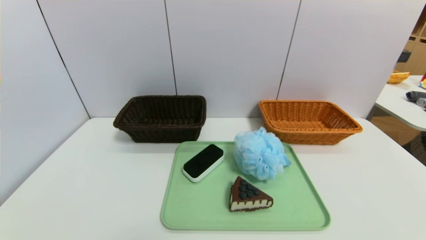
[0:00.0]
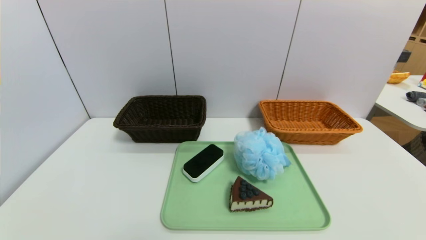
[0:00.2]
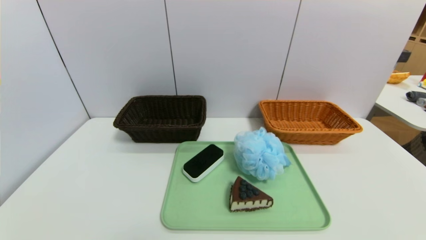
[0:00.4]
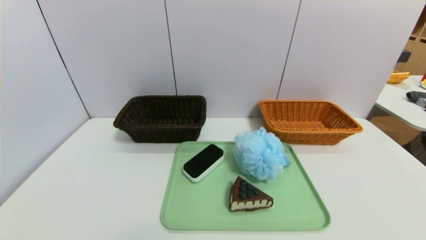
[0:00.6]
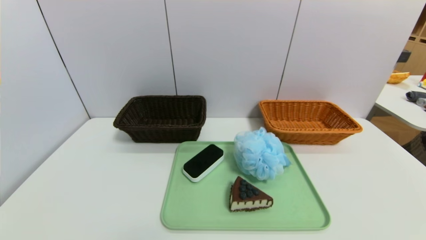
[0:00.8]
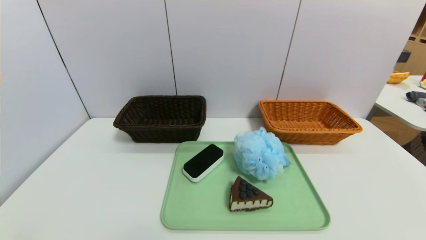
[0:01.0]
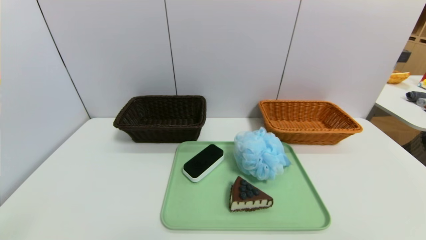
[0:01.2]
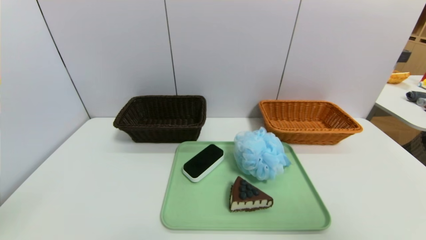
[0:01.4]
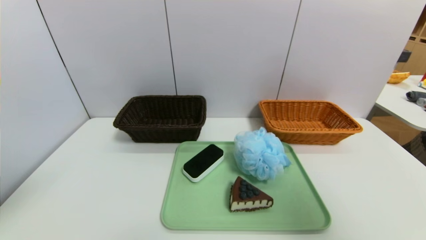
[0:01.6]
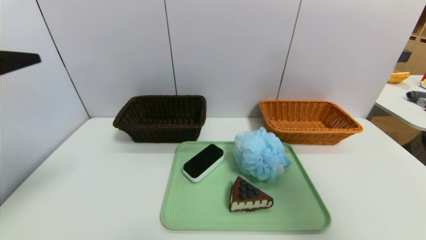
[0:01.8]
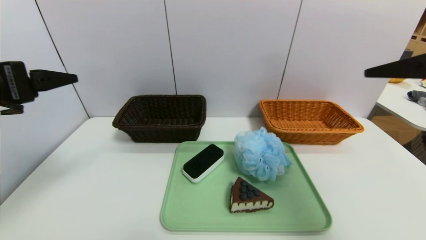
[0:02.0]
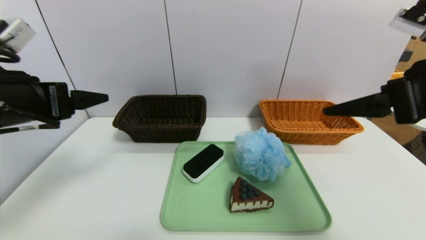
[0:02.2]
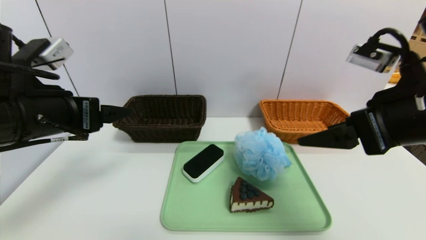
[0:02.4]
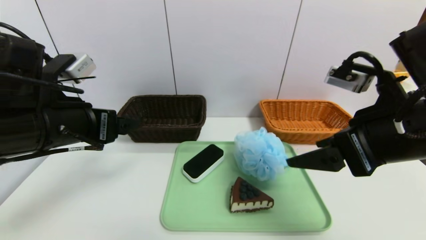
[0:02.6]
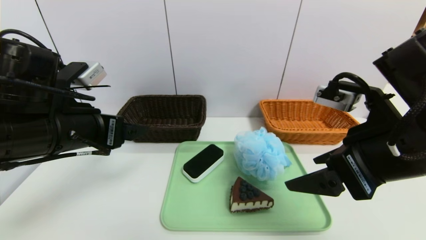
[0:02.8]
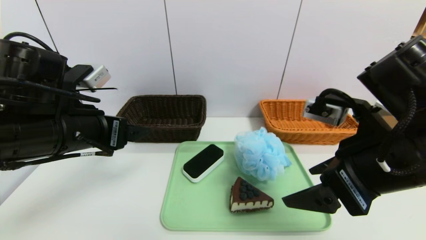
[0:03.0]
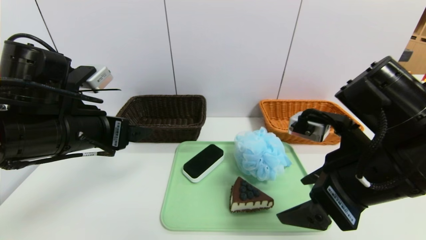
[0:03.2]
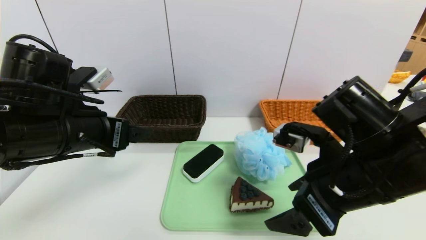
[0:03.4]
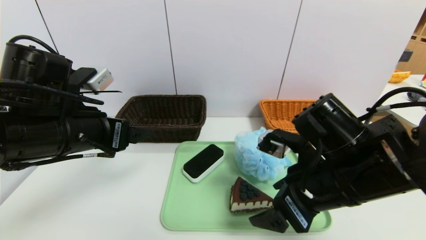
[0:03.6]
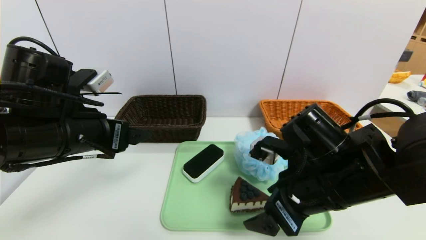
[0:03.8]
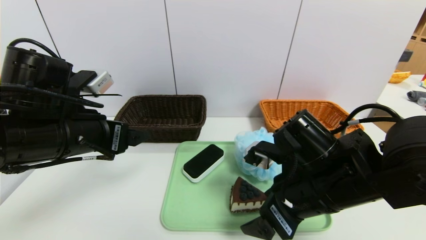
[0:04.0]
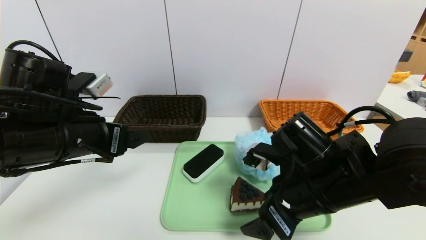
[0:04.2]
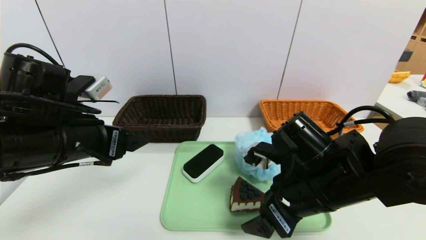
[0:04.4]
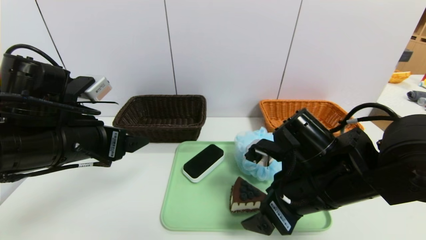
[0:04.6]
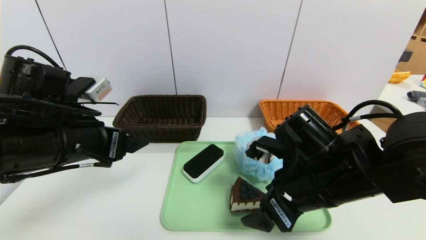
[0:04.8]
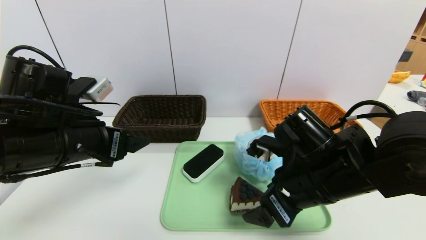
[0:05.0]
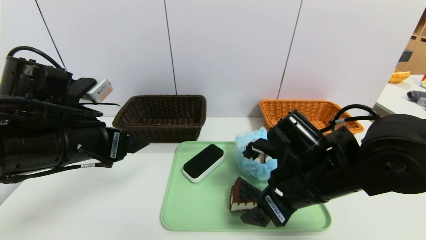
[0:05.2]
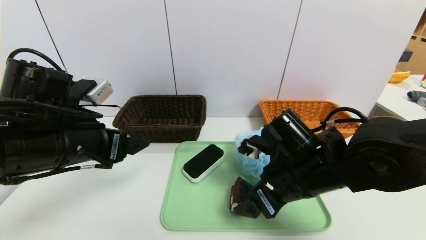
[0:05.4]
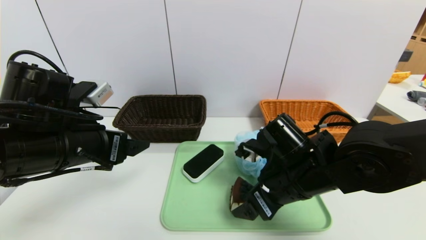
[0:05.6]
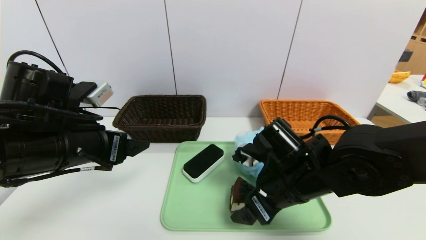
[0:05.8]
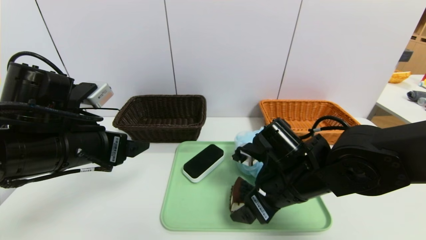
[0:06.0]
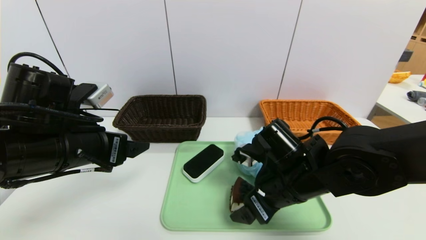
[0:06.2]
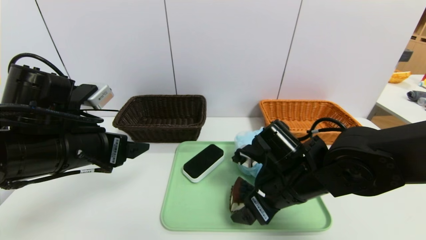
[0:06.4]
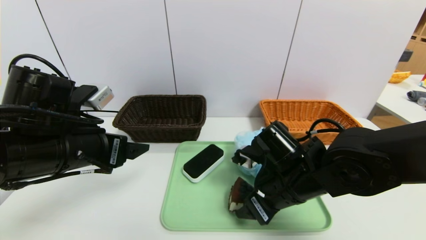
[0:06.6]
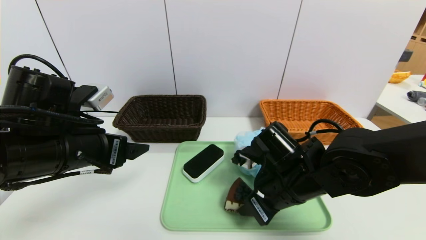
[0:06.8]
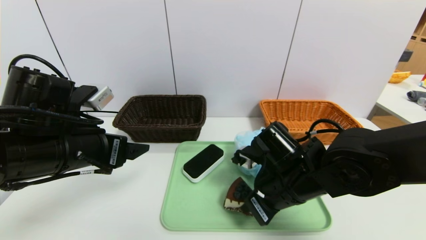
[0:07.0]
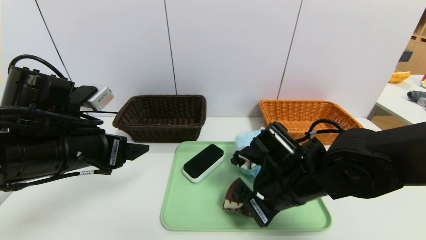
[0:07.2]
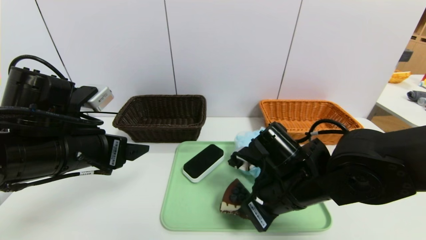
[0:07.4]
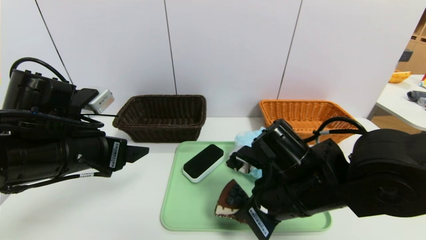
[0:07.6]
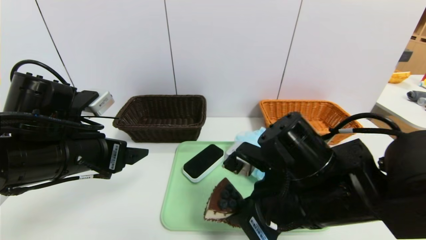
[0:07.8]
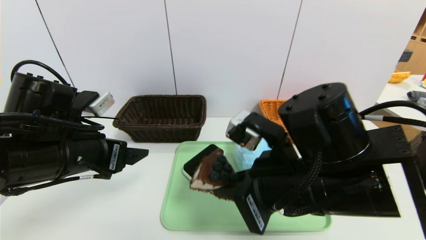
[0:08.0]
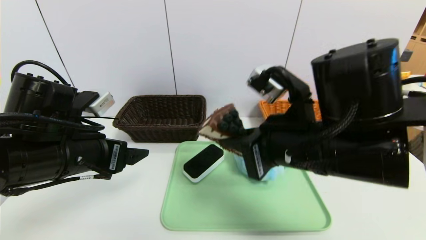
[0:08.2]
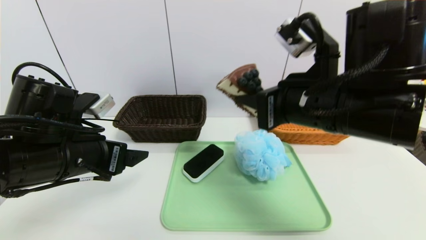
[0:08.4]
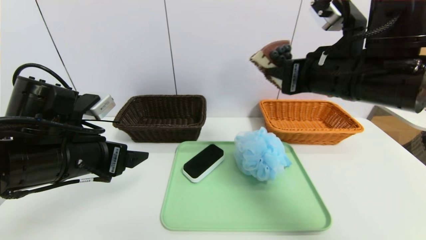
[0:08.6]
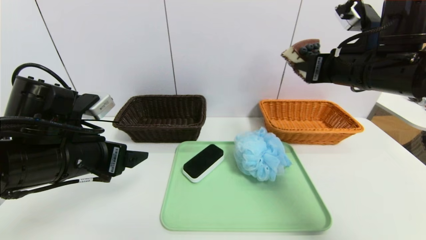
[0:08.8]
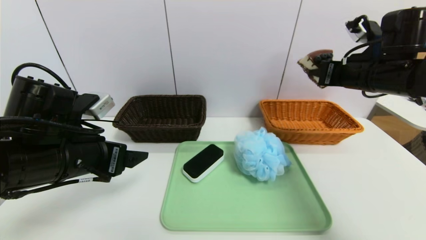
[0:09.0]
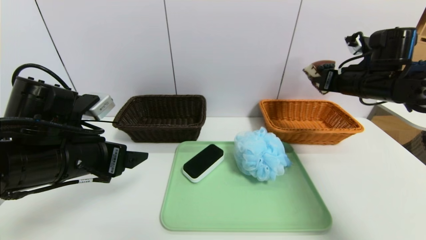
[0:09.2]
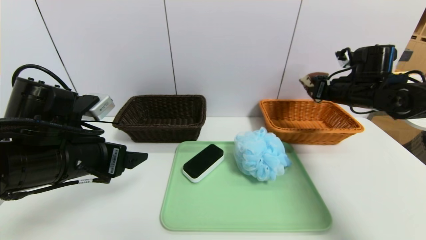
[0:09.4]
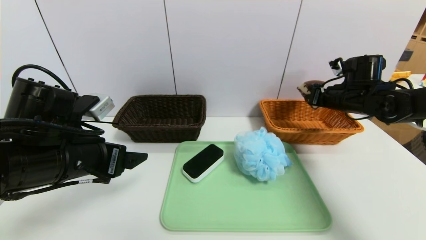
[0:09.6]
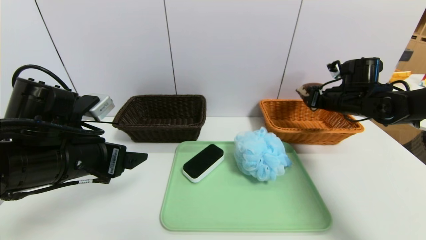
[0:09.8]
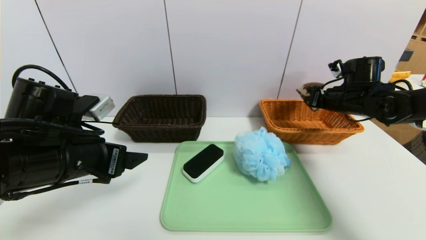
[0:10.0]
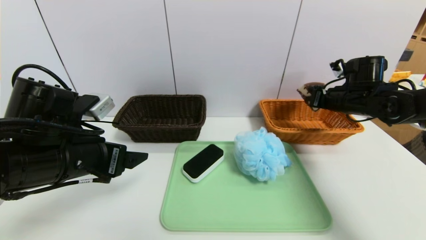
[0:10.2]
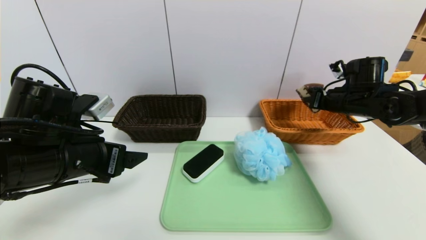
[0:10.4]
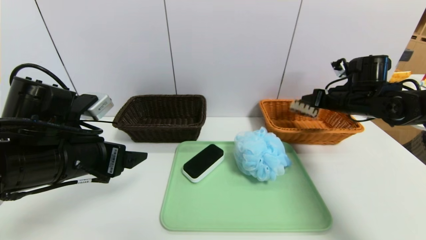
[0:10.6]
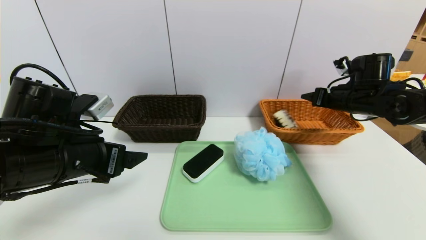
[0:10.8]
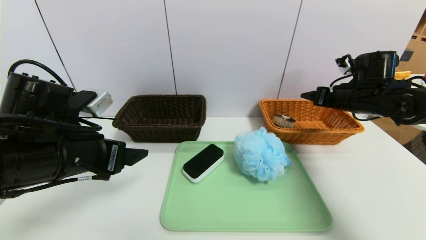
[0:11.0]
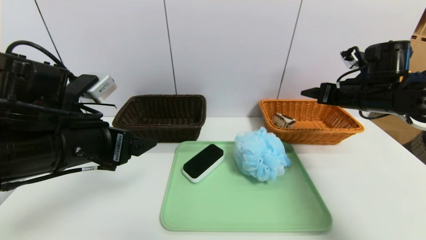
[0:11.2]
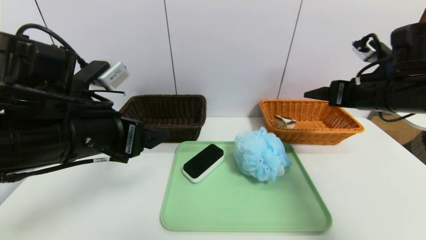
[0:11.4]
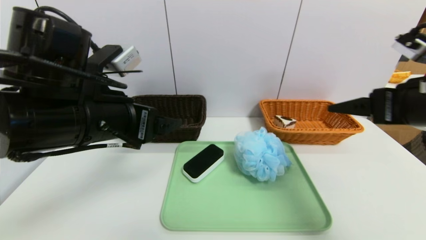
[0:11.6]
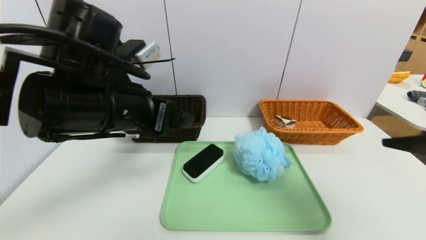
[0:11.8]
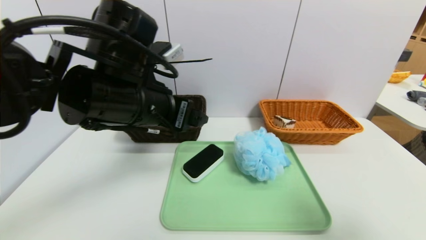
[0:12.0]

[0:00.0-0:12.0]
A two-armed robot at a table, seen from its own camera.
Task of the whole recording: place the food in the right basket with the right gripper, and place the non food items in the left basket with the left gripper.
Step, 0:00.0 to 0:10.8: Grasp the triangle cake and put it in the right basket.
0:00.0 to 0:01.6: The two grippers go about 30 cm upward.
0:01.6 to 0:03.0: The right gripper moves downward, to the left and forward, some 20 cm. Meanwhile the left gripper goes about 20 cm forward, downward and to the right.
0:03.0 to 0:04.4: The right gripper heads downward and to the left, covering approximately 10 cm.
0:04.4 to 0:06.0: The grippers move only a little.
0:06.0 to 0:07.6: The right gripper closes up.
0:07.6 to 0:09.0: The right gripper goes approximately 25 cm to the right, forward and upward.
0:09.0 to 0:10.4: The right gripper heads downward and forward, covering some 10 cm.
0:10.4 to 0:12.0: The right gripper travels backward by roughly 35 cm, and opens its fingers. Meanwhile the left gripper is displaced to the right and upward by about 15 cm.

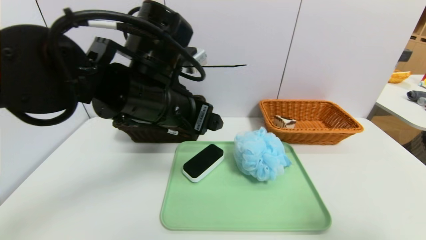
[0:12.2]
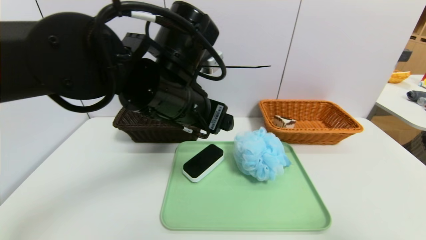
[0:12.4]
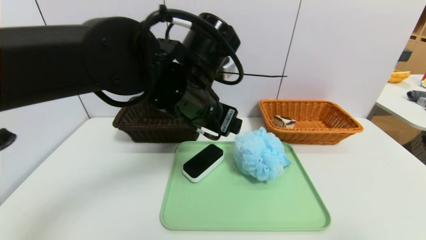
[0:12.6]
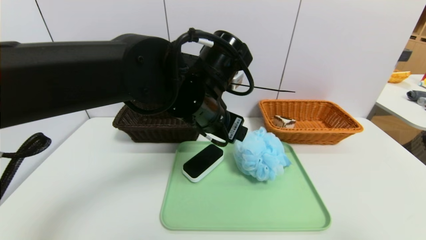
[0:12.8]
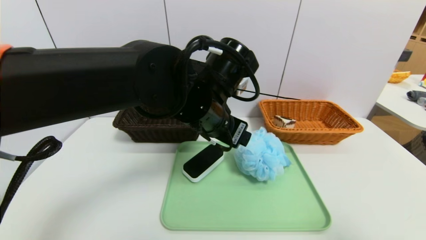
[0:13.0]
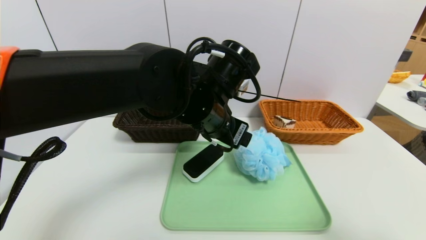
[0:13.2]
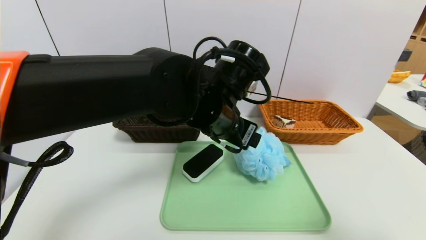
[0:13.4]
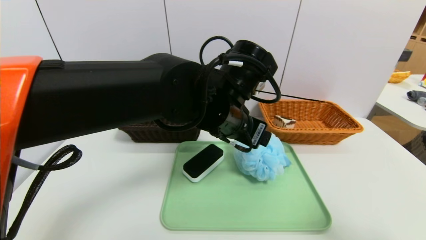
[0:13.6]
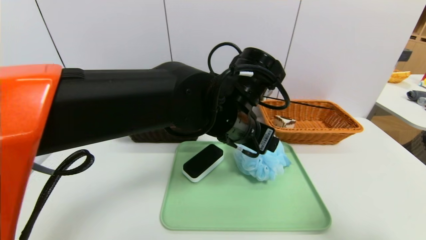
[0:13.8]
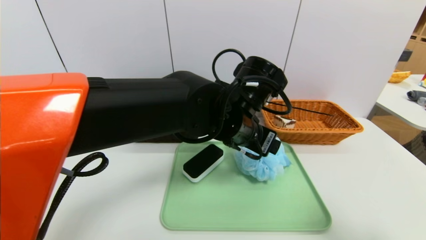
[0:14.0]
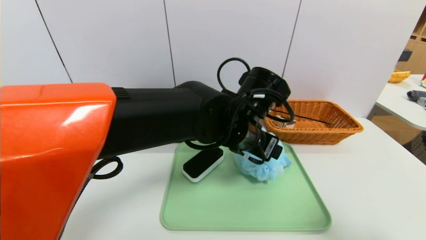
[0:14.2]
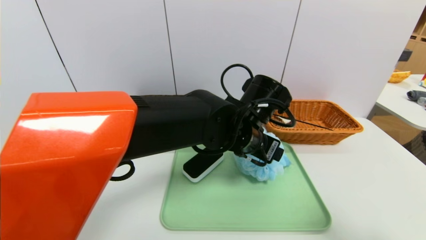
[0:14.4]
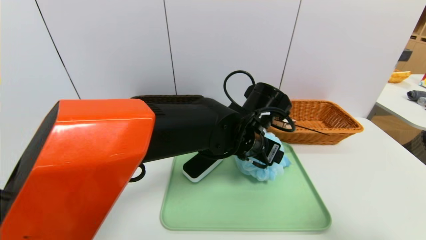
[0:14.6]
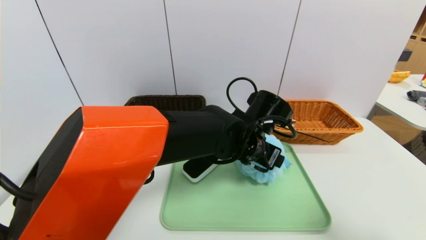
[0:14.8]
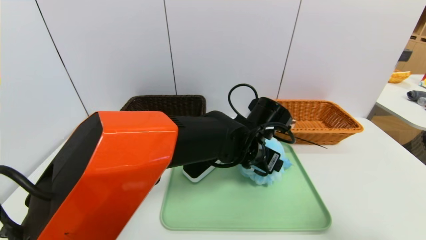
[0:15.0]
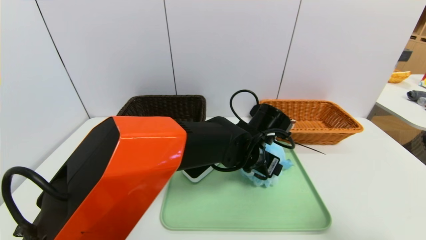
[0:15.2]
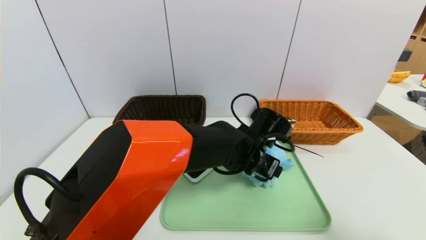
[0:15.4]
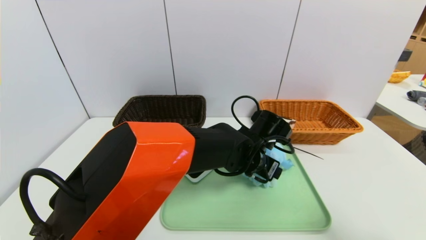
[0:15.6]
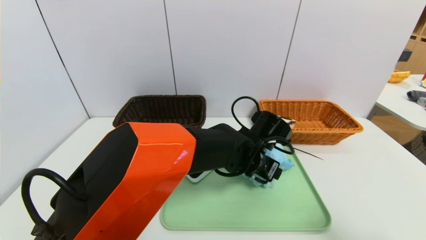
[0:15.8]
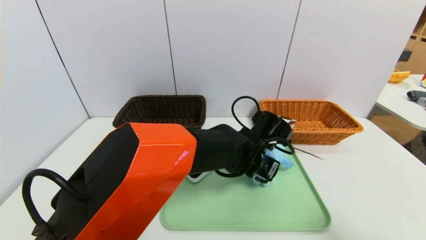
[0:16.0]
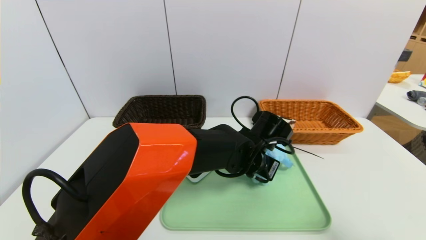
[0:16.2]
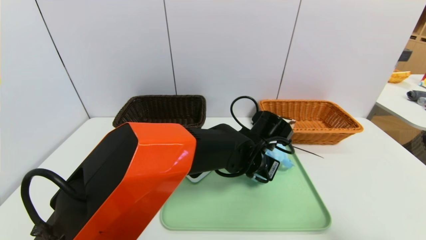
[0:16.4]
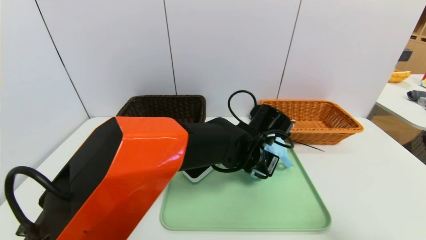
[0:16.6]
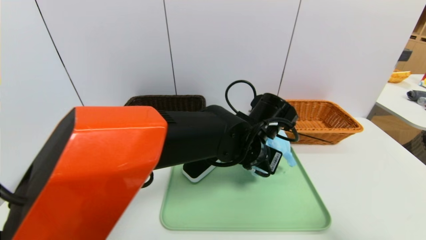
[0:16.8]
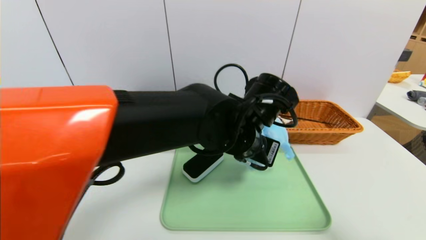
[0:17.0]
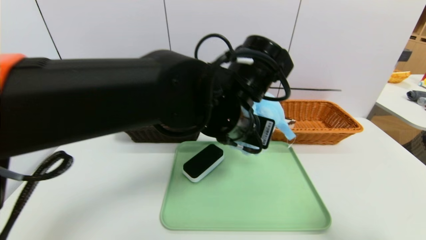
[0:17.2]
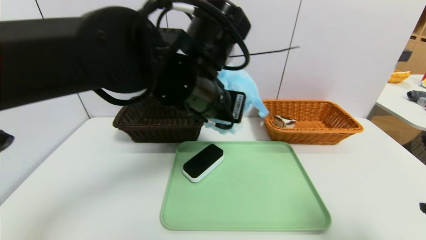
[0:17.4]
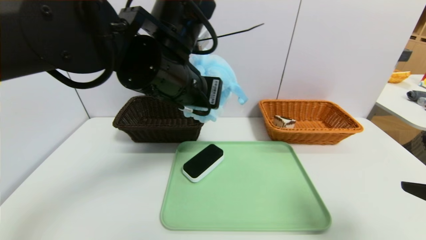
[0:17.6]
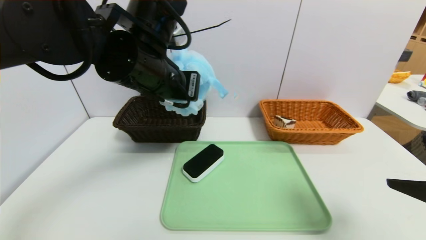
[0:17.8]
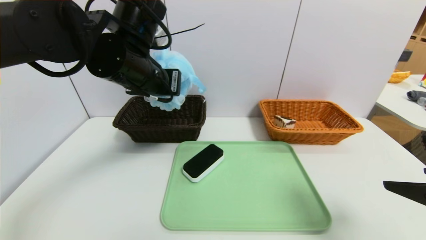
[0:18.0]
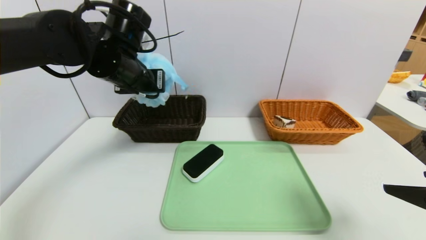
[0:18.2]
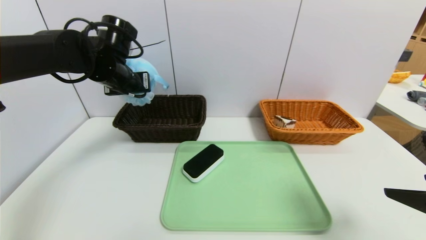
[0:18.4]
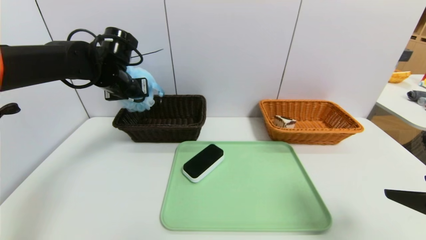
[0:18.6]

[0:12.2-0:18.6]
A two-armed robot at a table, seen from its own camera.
Task of the whole recording: place the food in the right basket with the right gripper, and place the non food items in the left basket with the left gripper.
0:12.2 to 0:13.8: The left gripper shifts about 10 cm to the right.
0:13.8 to 0:15.4: The left gripper moves downward and to the right, approximately 10 cm.
0:15.4 to 0:17.0: The left gripper travels upward by roughly 10 cm, and closes up.
0:17.0 to 0:18.6: The left gripper goes approximately 30 cm to the left and forward, while the right gripper moves forward, roughly 5 cm.
